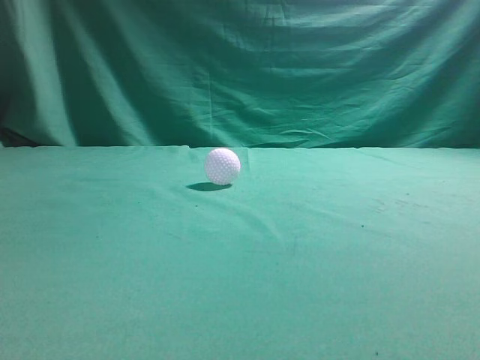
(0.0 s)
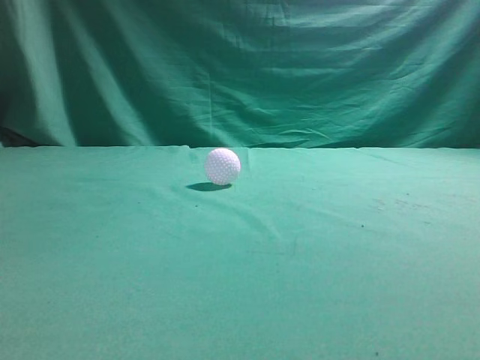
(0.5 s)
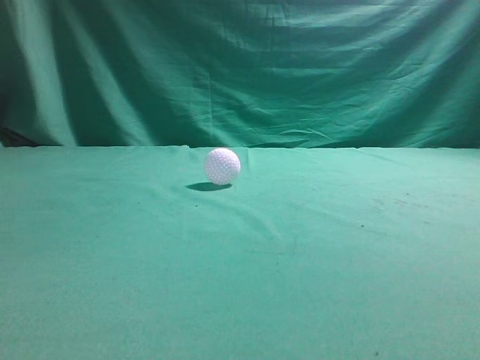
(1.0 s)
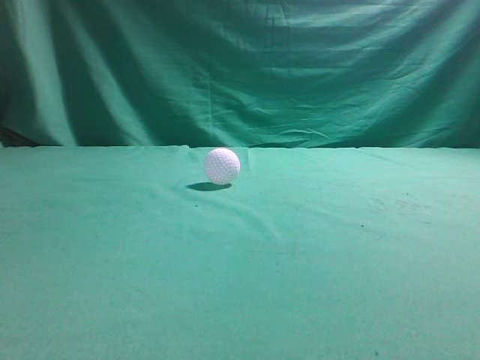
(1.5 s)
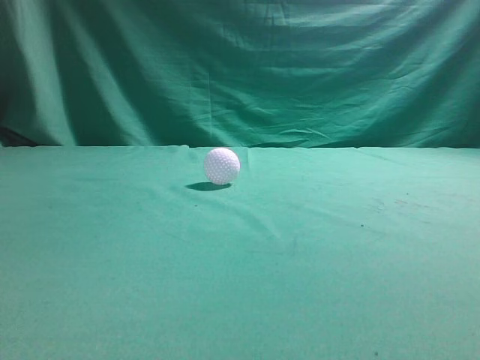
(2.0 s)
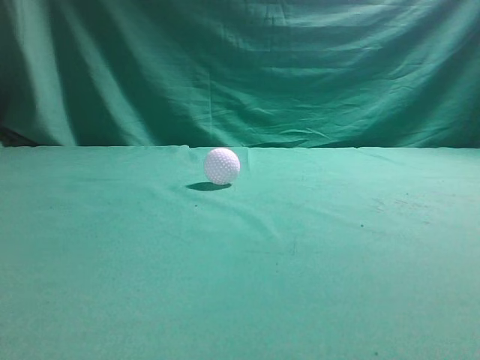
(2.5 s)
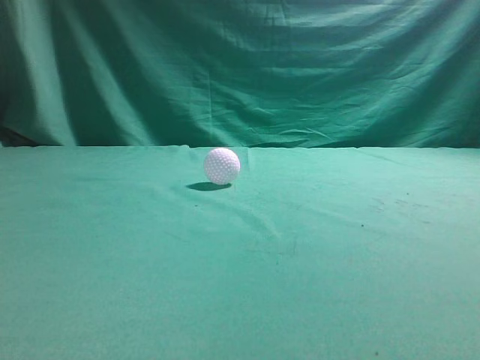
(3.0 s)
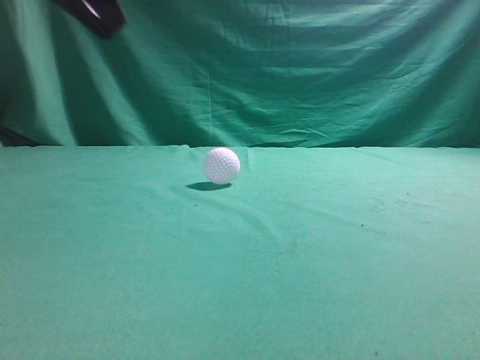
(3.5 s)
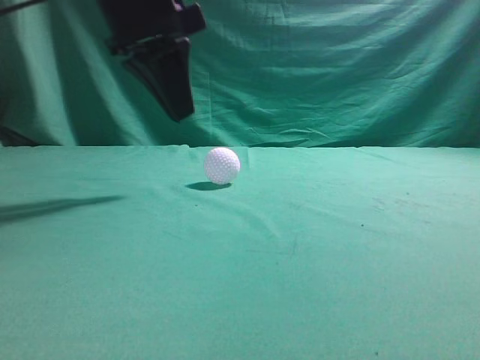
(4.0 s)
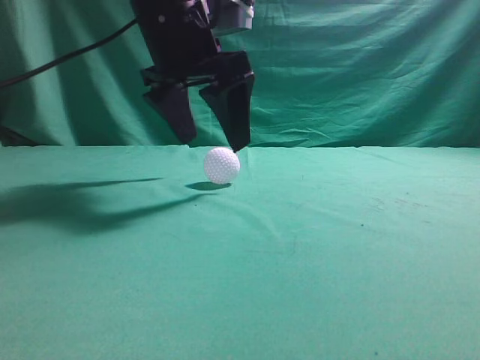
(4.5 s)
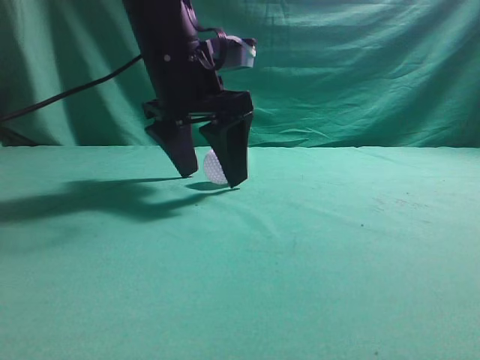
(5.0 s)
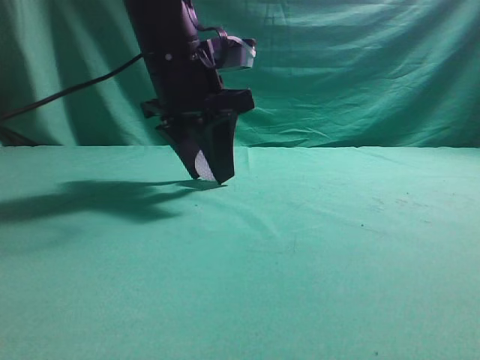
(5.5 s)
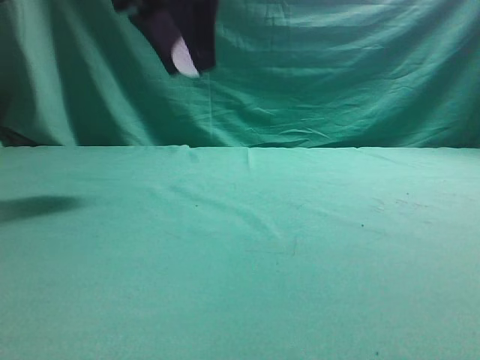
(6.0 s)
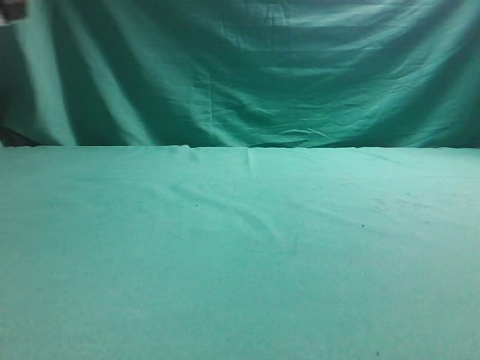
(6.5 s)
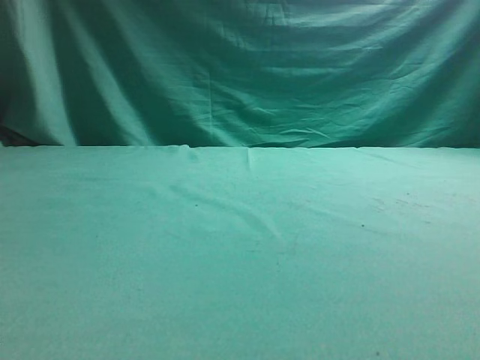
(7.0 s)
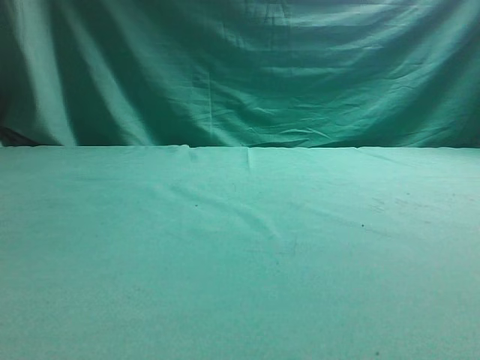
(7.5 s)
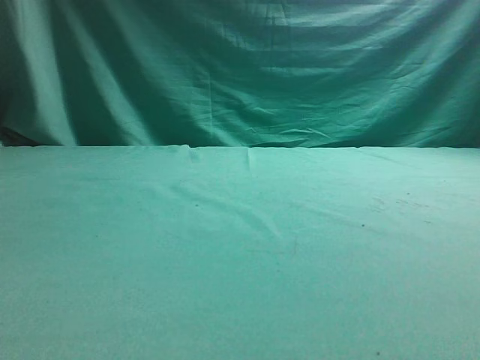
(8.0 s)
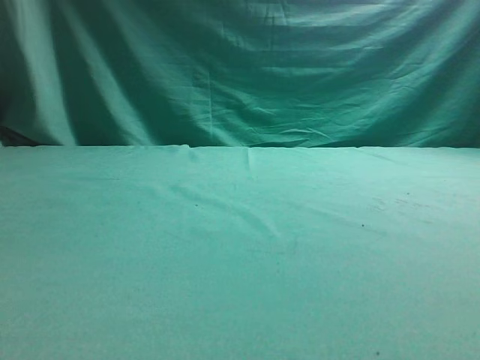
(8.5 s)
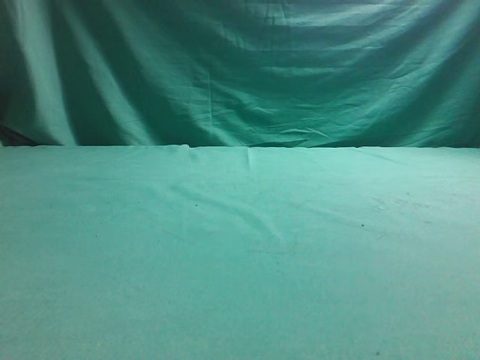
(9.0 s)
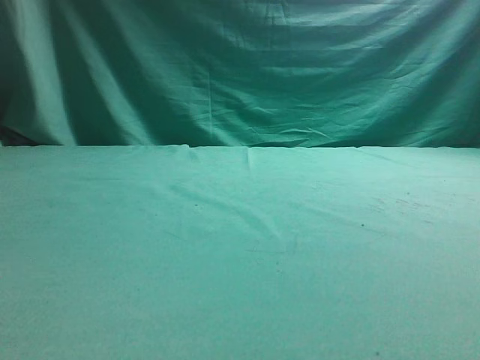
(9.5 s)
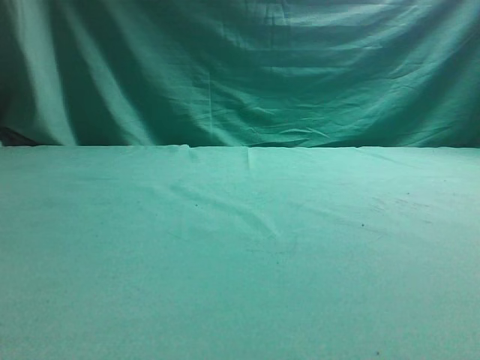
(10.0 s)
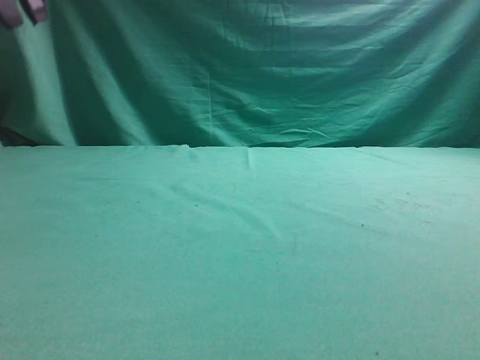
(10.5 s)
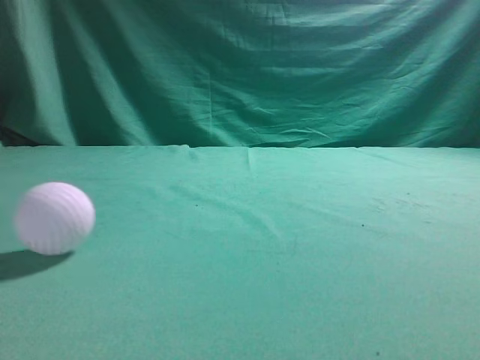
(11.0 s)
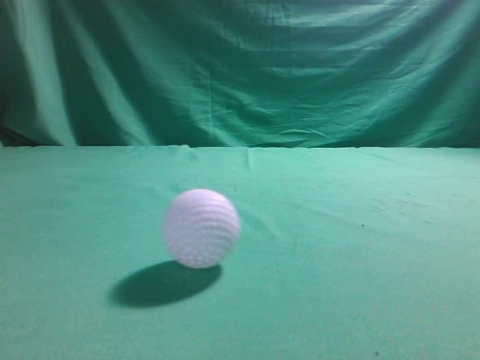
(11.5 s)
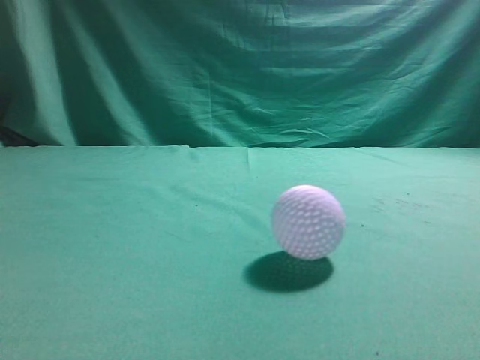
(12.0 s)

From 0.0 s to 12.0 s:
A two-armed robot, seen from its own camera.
Task of the whole recording: pick up the ball and place it on the plate, then pick up the ball from the plate and put it in the center of the table.
Step, from 0.0 s to 5.5 s: Grab the spherical object with your left arm.
Step, from 6.0 s to 10.0 s: Place the sphere on the white object.
From 2.0 s to 4.0 s: The left gripper heads forward and to the right, covering approximately 35 cm.
From 4.0 s to 6.0 s: The left gripper opens.
From 6.0 s to 8.0 s: The left gripper shifts roughly 25 cm to the left.
From 10.0 s to 12.0 s: The right gripper goes some 5 cm to the left; the left gripper shifts approximately 30 cm backward and upward, and closes its fingers.

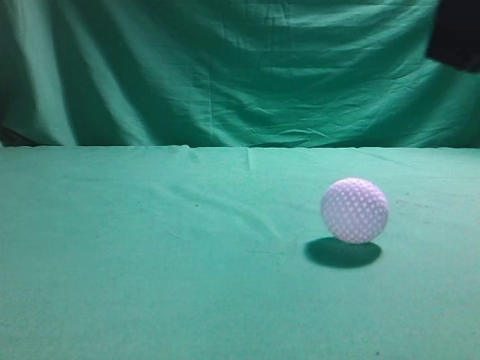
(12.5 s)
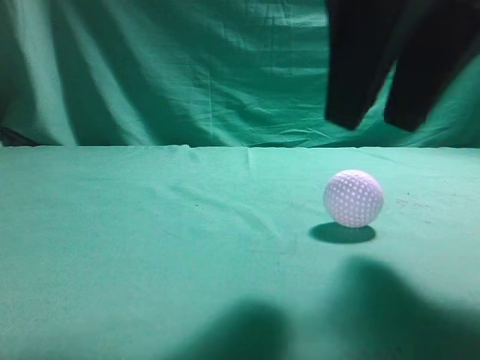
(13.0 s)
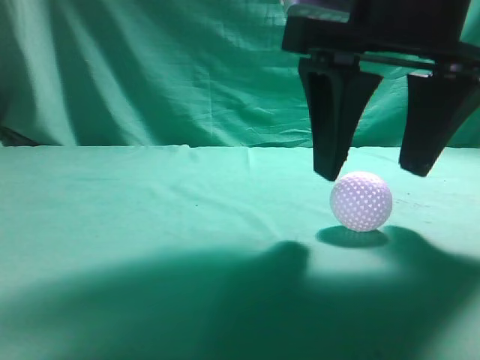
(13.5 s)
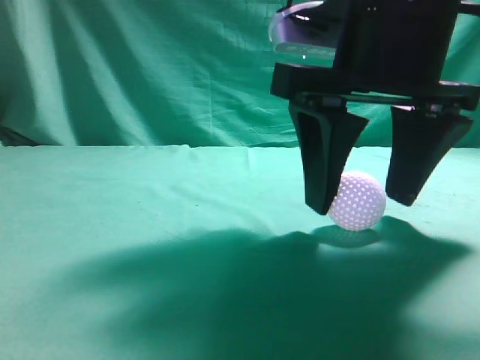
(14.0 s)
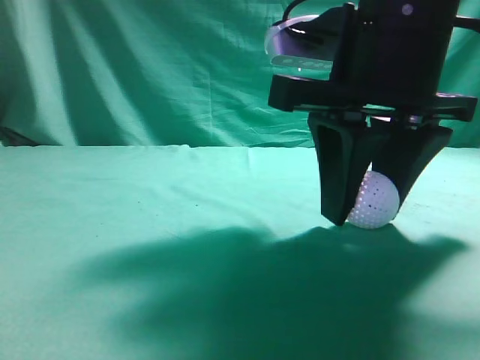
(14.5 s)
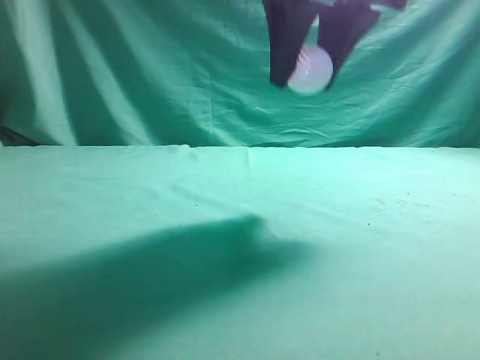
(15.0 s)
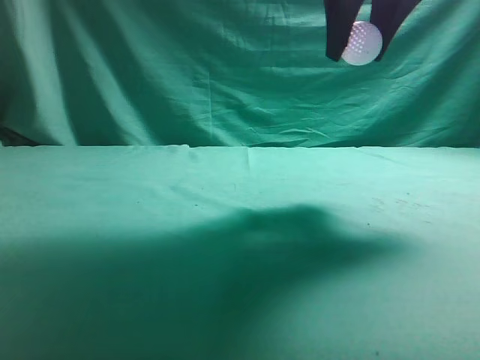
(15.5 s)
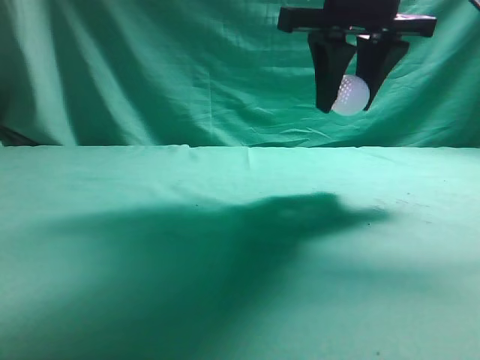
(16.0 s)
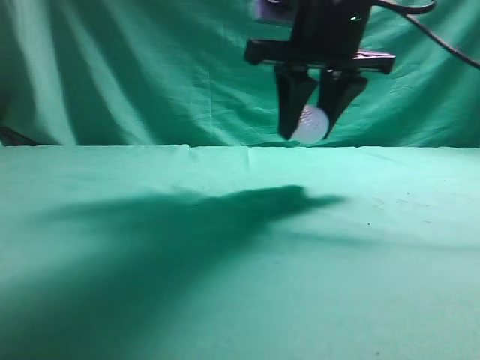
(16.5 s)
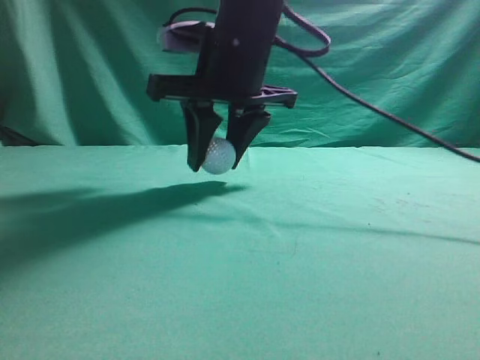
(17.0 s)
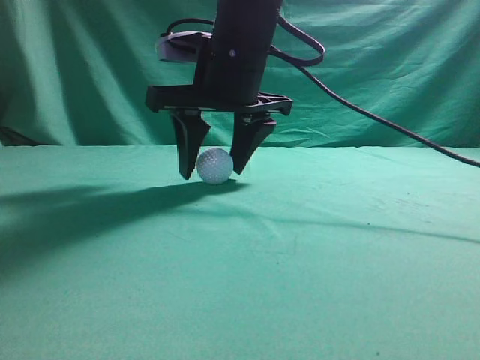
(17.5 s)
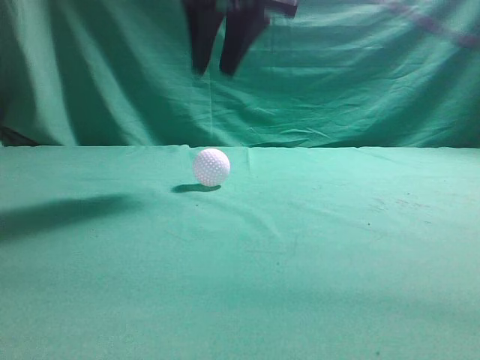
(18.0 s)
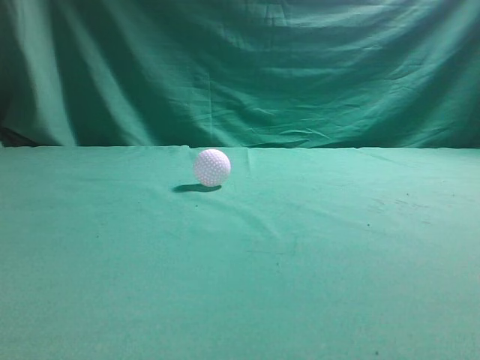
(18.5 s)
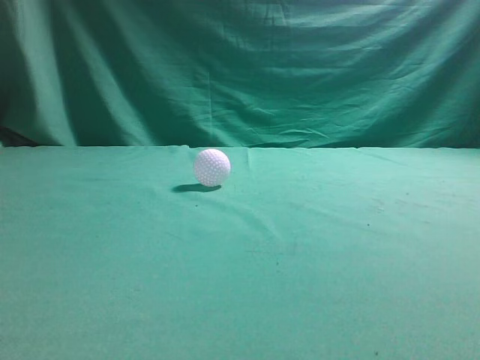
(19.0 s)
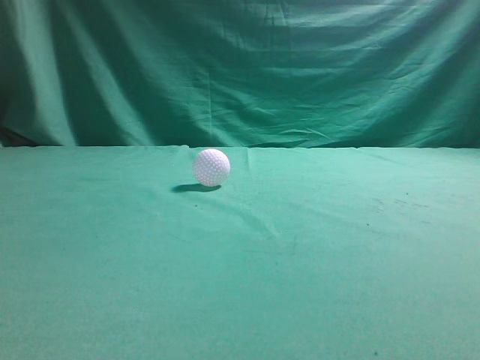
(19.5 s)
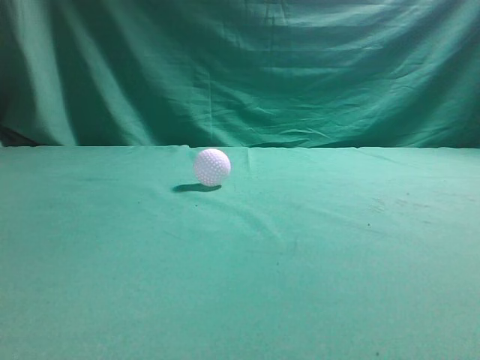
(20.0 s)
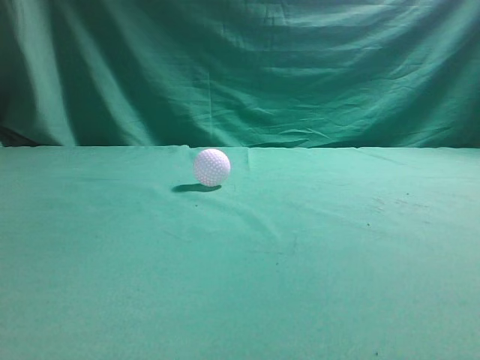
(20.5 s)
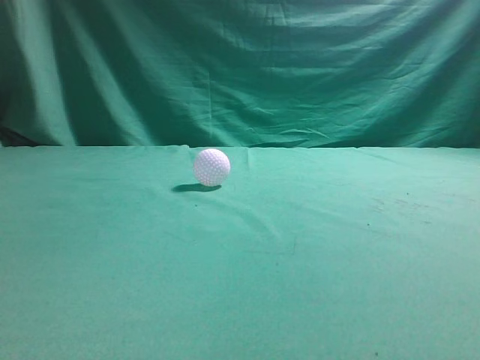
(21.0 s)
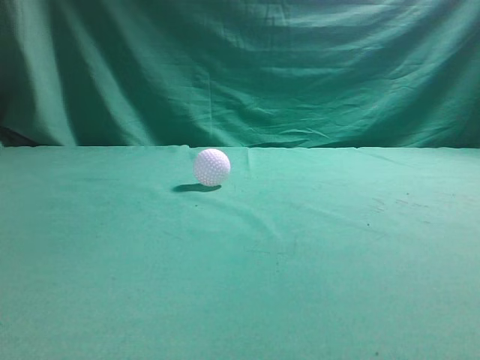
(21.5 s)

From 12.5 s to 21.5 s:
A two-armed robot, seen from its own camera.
Task of the whole recording: pick up the ball and place it on the plate, then pick up the ball from the plate and put it in the center of the table.
Step, from 12.5 s to 14.5 s: Grab the rolling spherical object.
Step, from 15.0 s to 17.5 s: Put the picked-up object on the table.
From 12.5 s to 14.5 s: The right gripper moves forward, downward and to the left, about 15 cm, and opens.
From 14.5 s to 17.0 s: The right gripper travels forward and to the left by some 15 cm, and goes upward and returns, roughly 10 cm each way.
From 17.0 s to 19.5 s: The right gripper travels backward, to the right and upward by approximately 40 cm, and closes, while the left gripper shifts about 5 cm downward.
